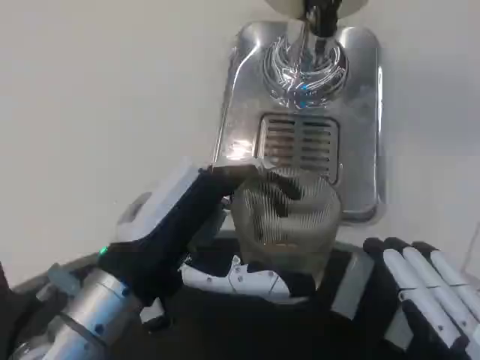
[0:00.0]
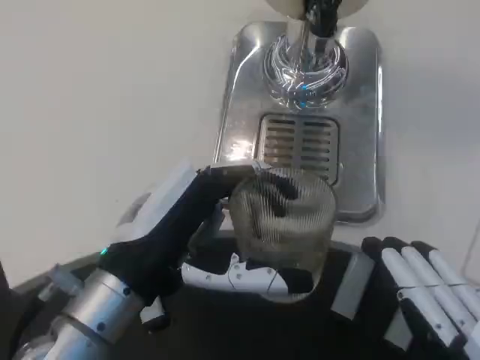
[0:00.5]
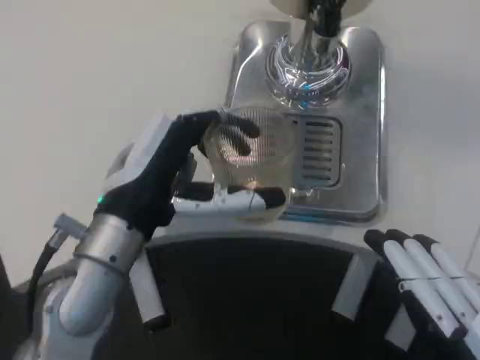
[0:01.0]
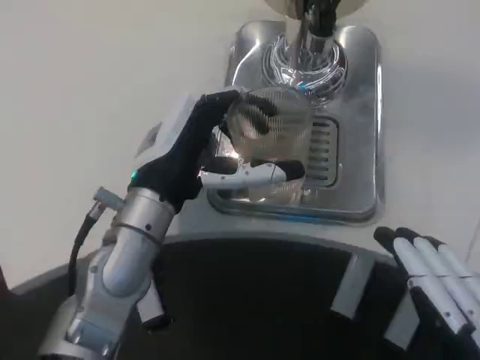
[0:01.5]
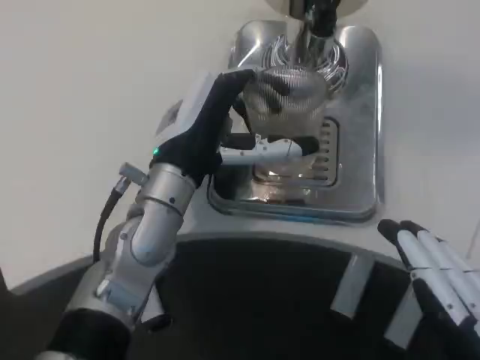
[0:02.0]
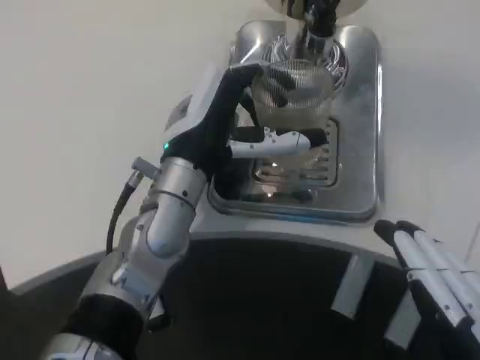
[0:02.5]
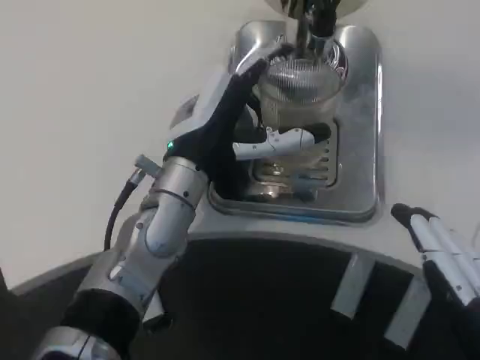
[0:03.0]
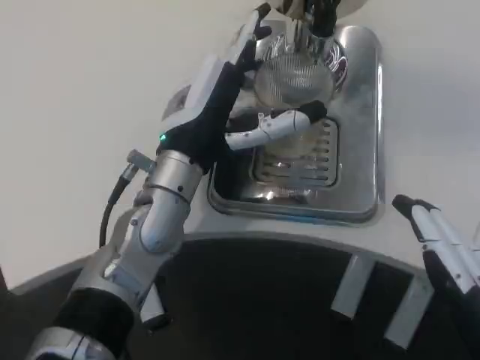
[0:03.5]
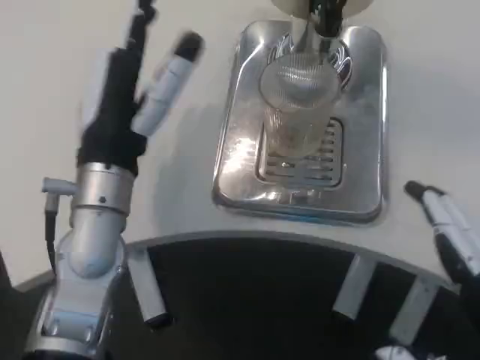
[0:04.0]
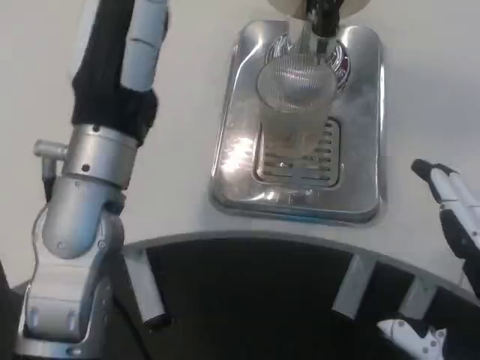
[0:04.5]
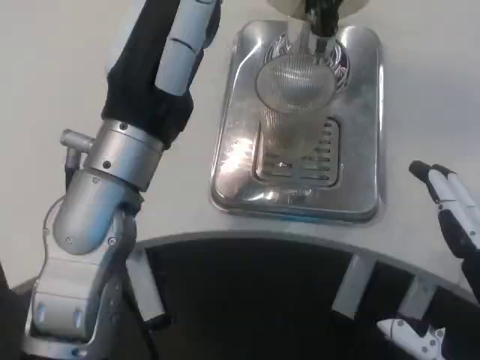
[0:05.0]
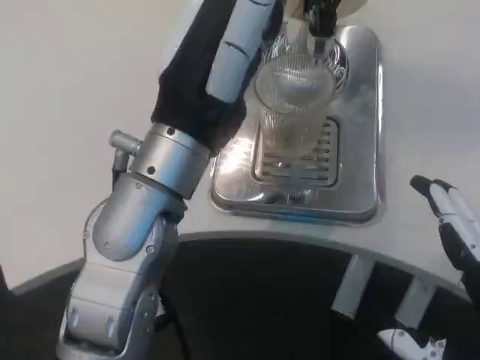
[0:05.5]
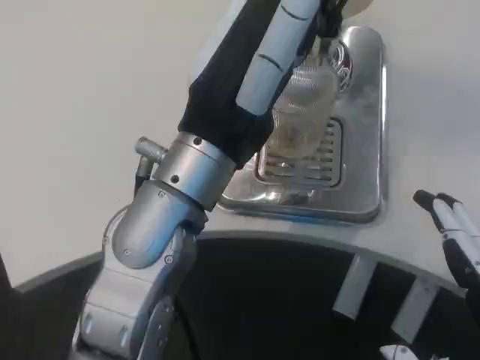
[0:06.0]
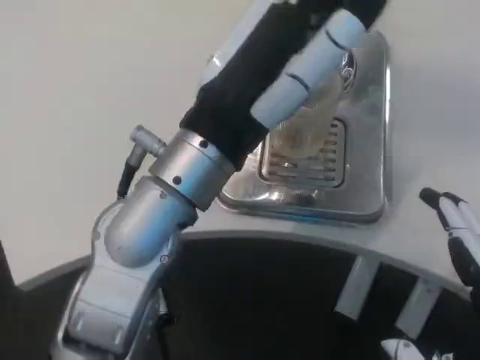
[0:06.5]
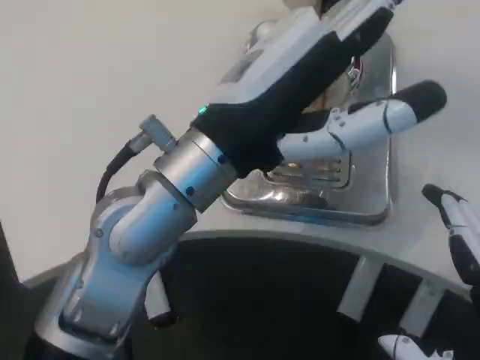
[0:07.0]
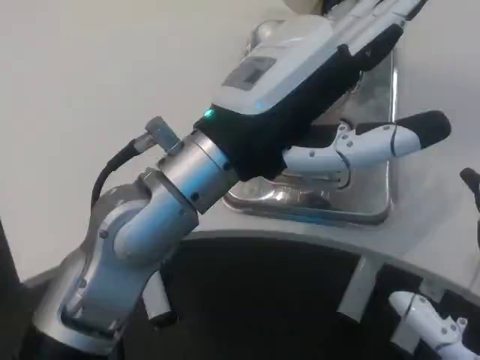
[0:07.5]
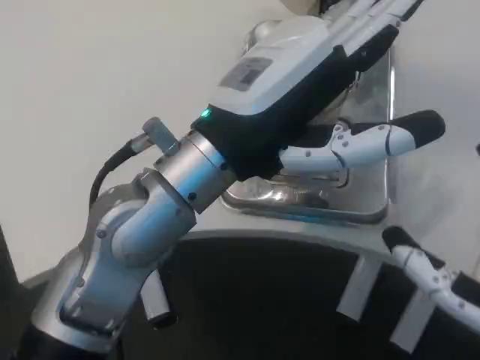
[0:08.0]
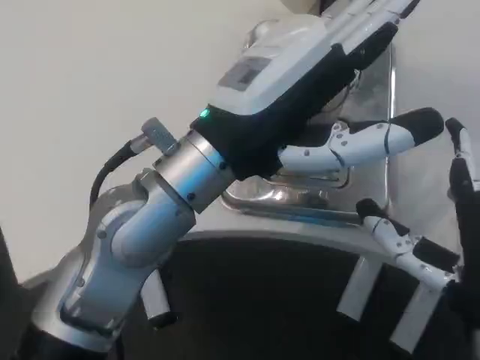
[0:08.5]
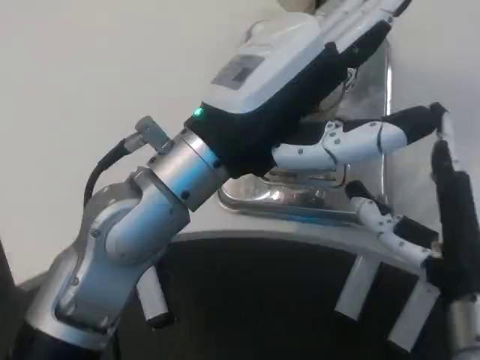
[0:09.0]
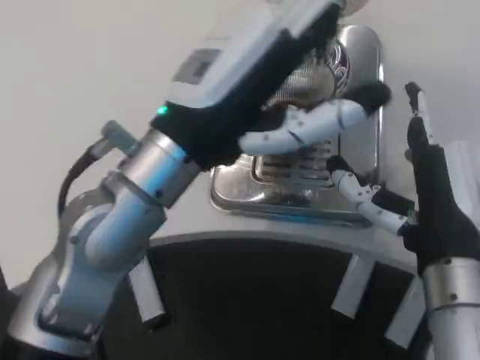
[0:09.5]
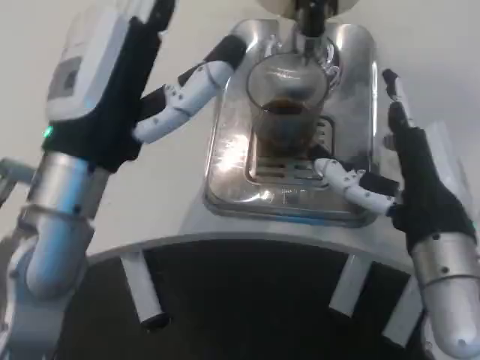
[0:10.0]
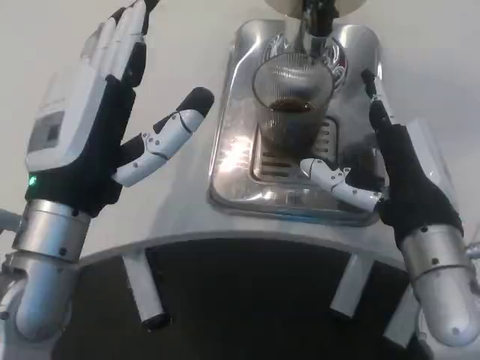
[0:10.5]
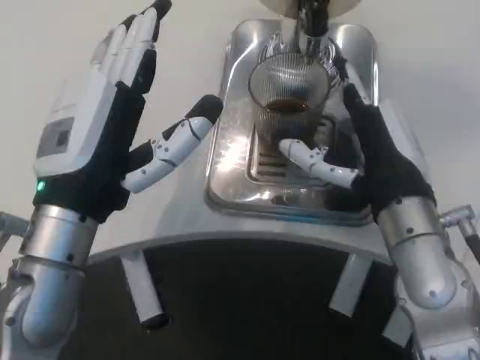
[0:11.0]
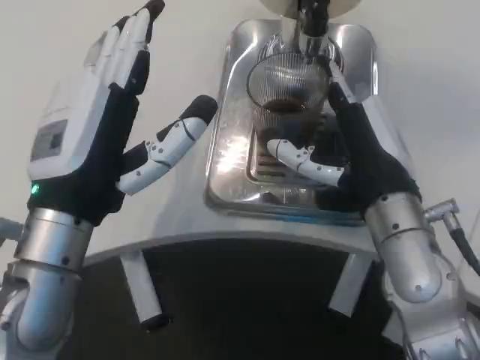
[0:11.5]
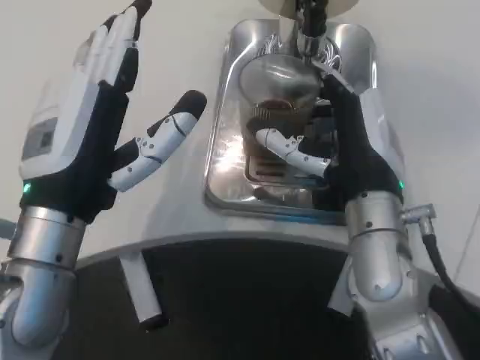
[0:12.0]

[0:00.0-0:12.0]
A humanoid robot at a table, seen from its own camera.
Task of the whole recording: Grasp the cup under the faucet to collect the drink, then remove the cup.
0:00.0 to 0:02.0: The left hand travels forward by about 15 cm.
0:02.0 to 0:04.0: The left hand changes place by approximately 5 cm.
0:04.0 to 0:06.0: The left hand travels to the right and upward by approximately 10 cm.
0:06.0 to 0:08.0: The right hand is displaced forward by about 5 cm.
0:08.0 to 0:10.0: The right hand is displaced forward by roughly 10 cm. The left hand travels to the left by approximately 5 cm.
0:10.0 to 0:12.0: The right hand moves some 5 cm.

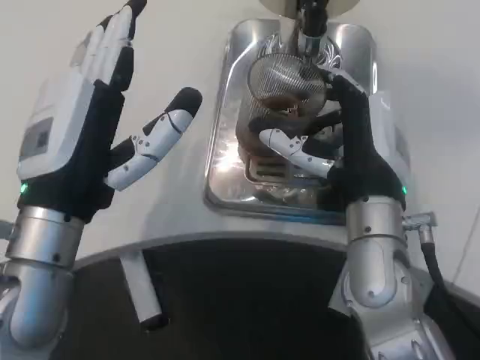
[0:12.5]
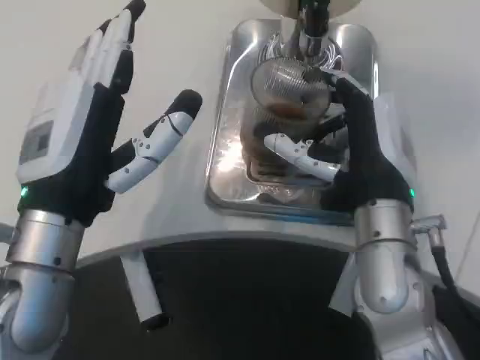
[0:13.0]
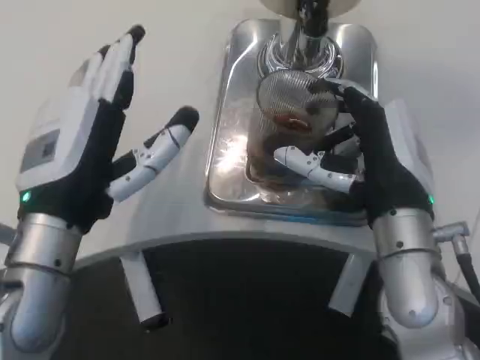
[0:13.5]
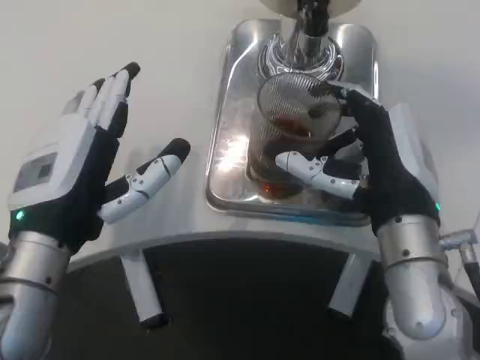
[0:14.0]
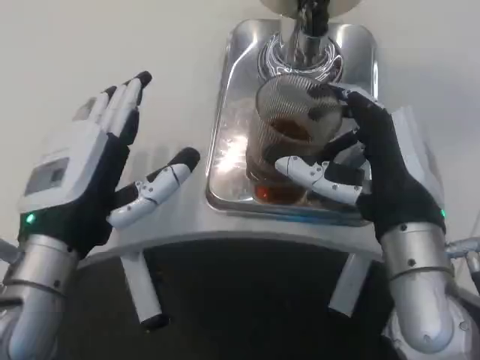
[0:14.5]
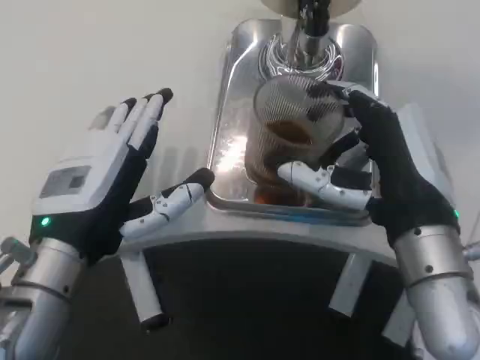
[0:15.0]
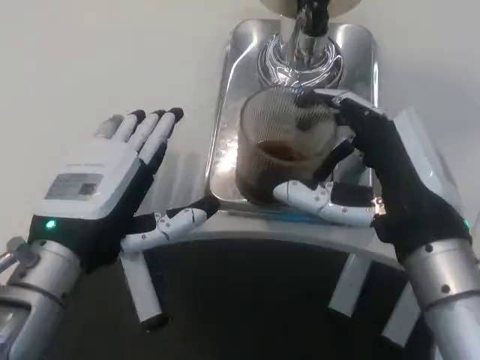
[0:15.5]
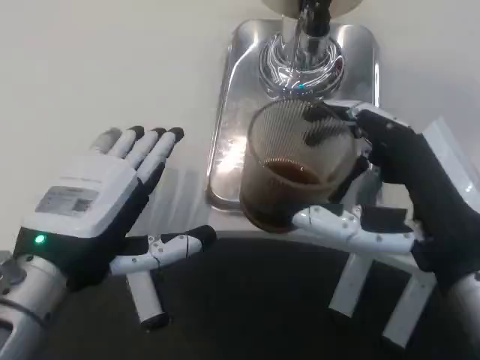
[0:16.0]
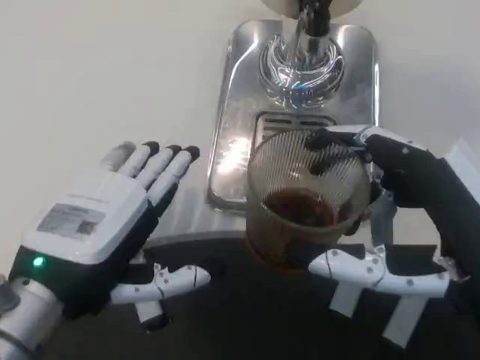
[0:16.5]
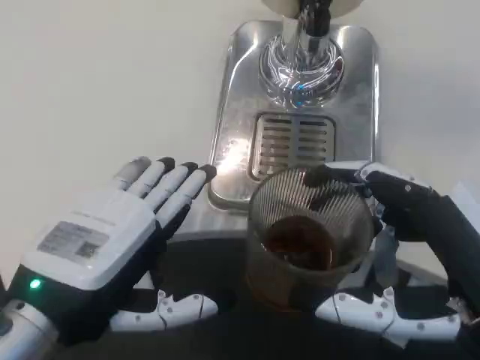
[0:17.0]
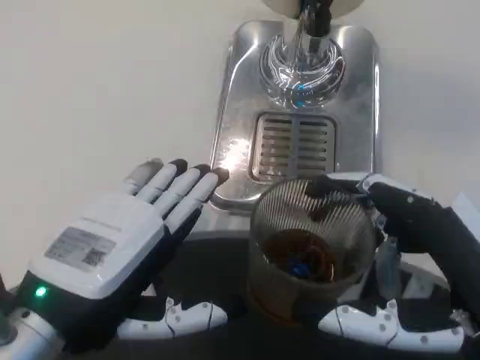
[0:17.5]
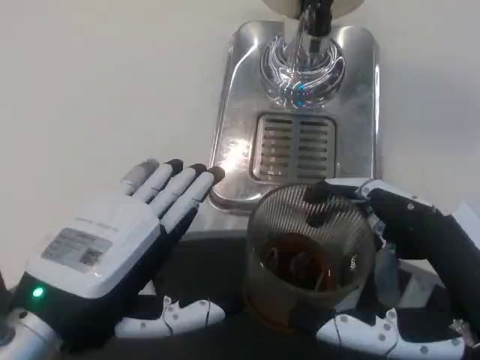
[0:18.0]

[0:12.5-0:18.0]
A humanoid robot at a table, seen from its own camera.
Task of the whole recording: Grasp the cup under the faucet to collect the drink, then remove the cup.
0:12.5 to 0:14.5: The right hand shifts by some 5 cm.
0:14.5 to 0:16.0: The right hand moves backward, roughly 5 cm.
0:16.0 to 0:18.0: The left hand changes place by approximately 5 cm; the right hand is displaced backward by about 5 cm.

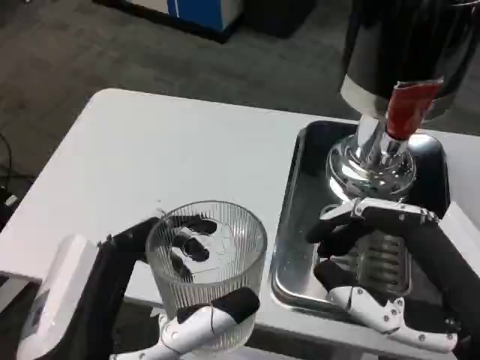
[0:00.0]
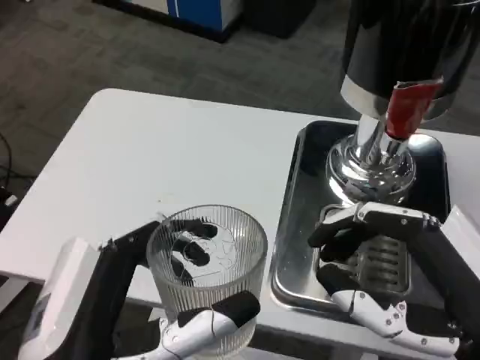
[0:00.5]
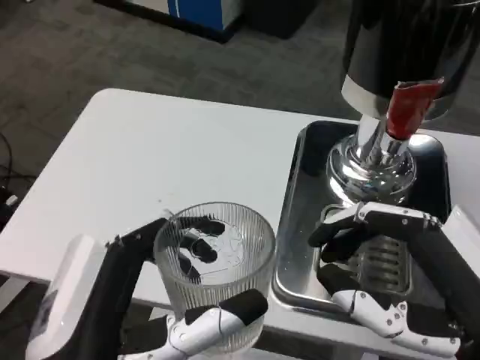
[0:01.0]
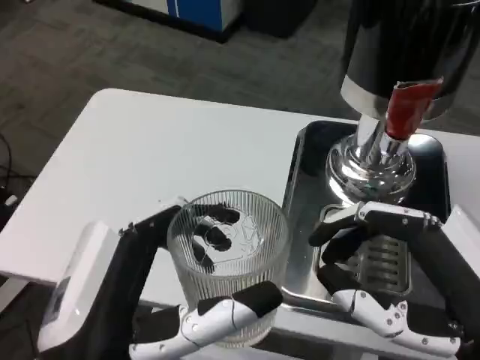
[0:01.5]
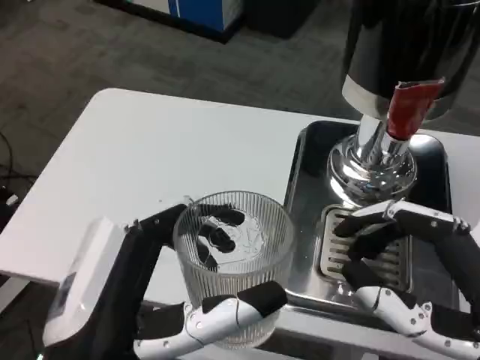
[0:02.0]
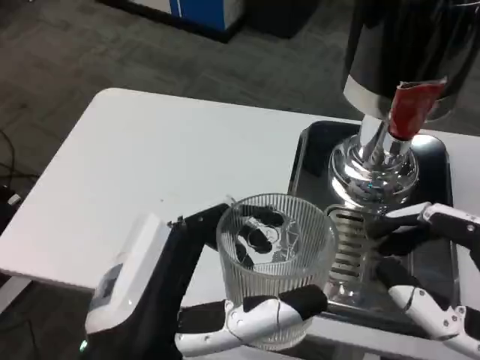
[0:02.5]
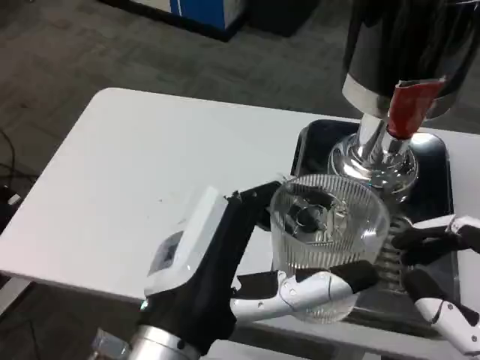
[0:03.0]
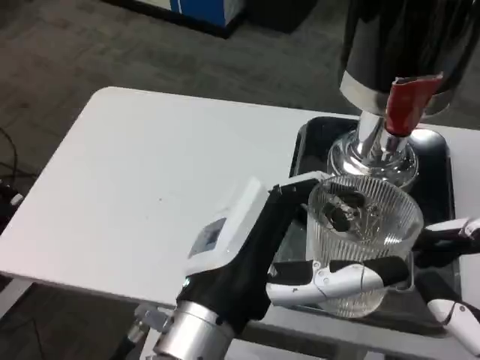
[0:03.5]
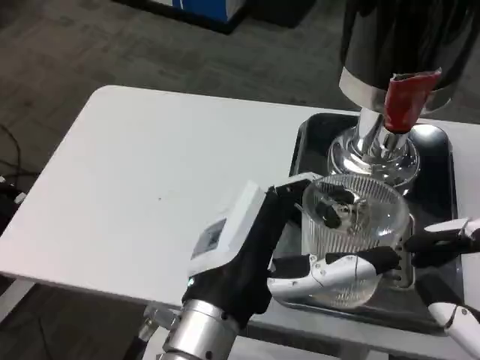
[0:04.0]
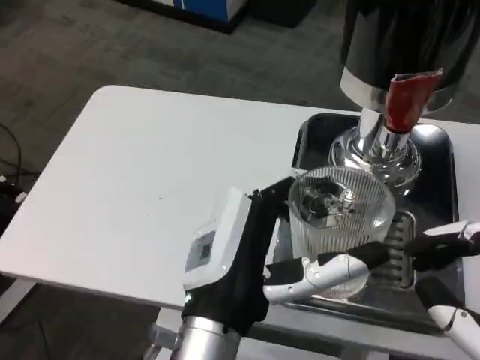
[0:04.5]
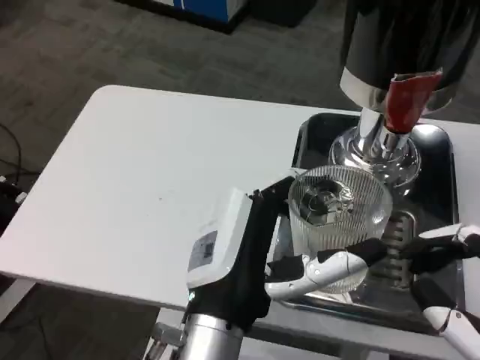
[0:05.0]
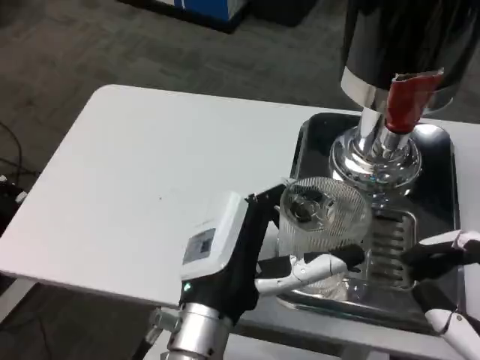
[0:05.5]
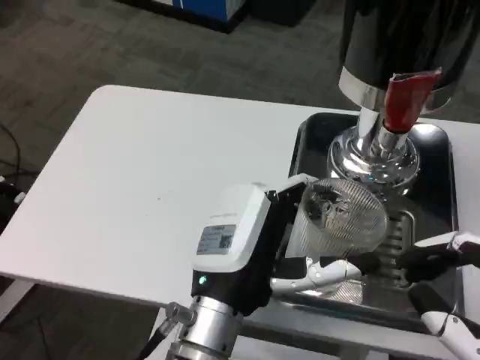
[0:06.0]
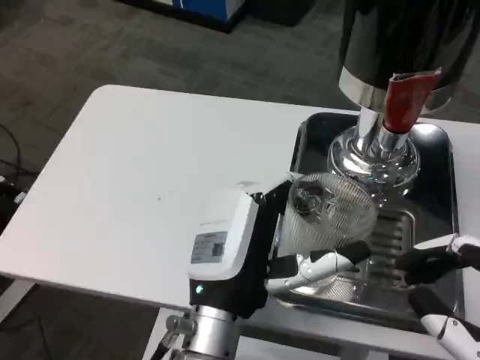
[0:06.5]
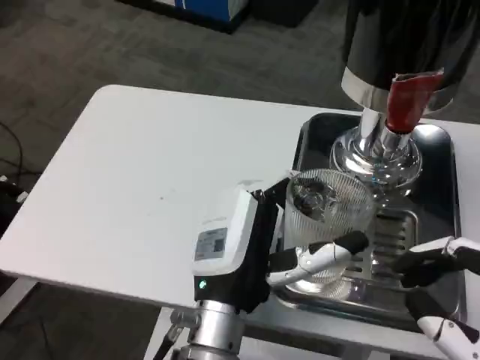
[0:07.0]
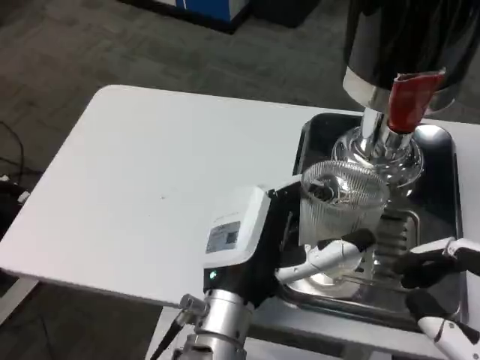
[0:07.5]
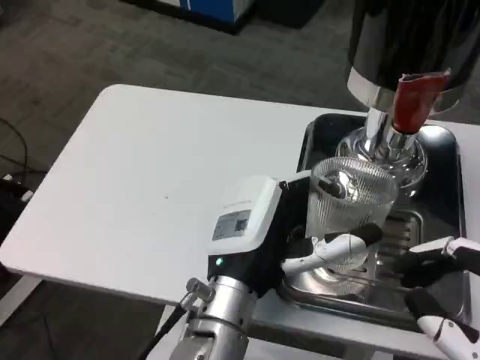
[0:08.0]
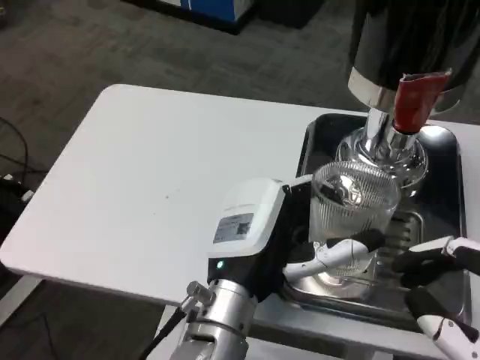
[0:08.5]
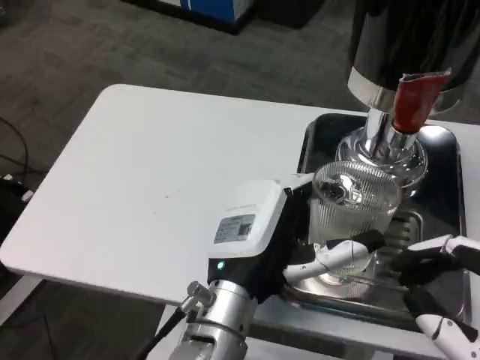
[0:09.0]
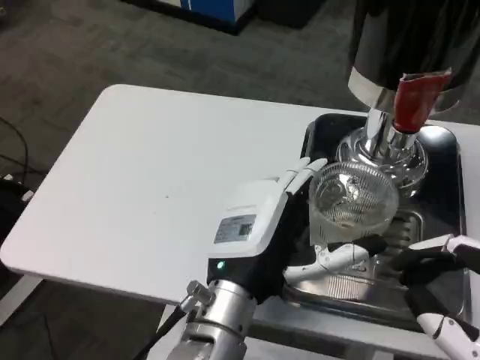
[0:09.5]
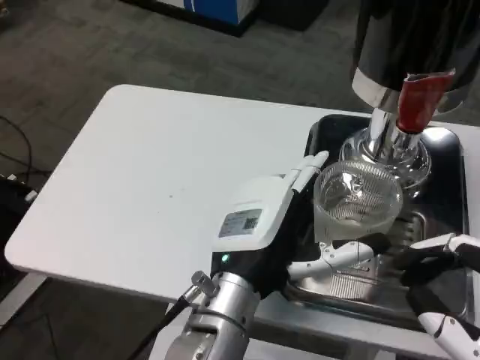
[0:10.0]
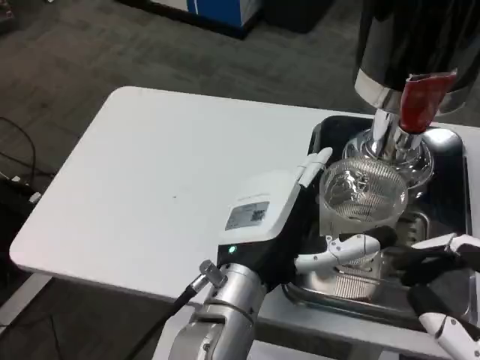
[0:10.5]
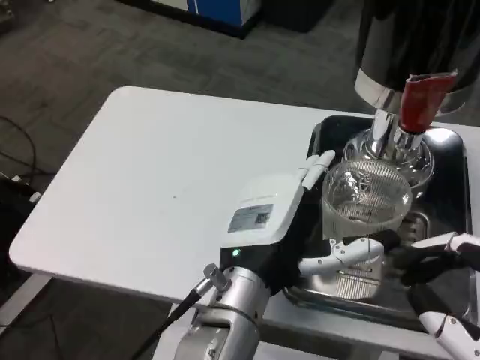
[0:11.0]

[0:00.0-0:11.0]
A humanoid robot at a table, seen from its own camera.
Task of the whole recording: Grasp the cup under the faucet to collect the drink, then remove the cup.
0:02.0 to 0:03.5: The left hand moves to the right and forward, approximately 10 cm.
0:03.5 to 0:05.5: The left hand heads downward, covering roughly 5 cm.
0:05.5 to 0:09.0: The hands move only a little.
